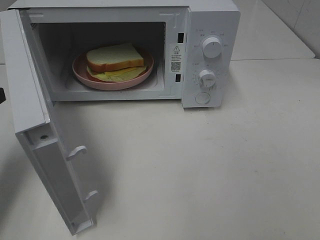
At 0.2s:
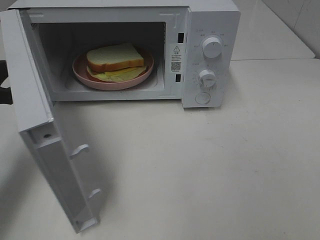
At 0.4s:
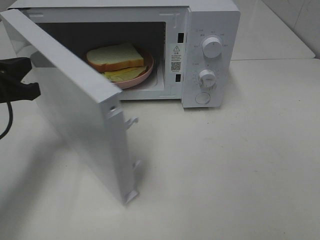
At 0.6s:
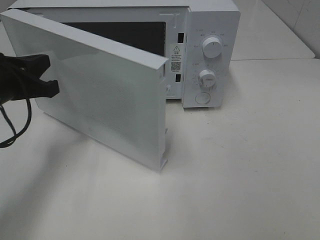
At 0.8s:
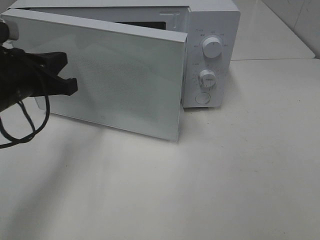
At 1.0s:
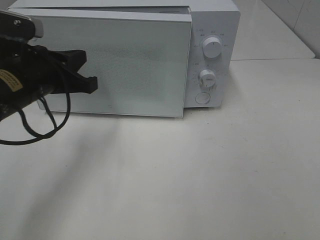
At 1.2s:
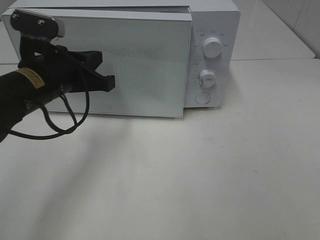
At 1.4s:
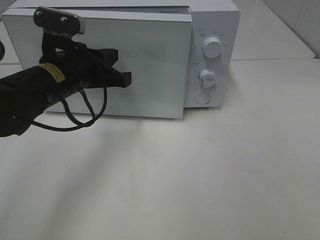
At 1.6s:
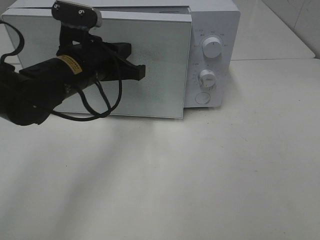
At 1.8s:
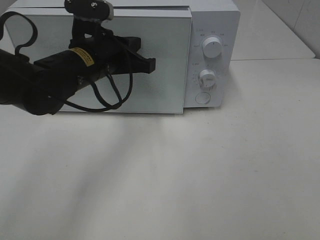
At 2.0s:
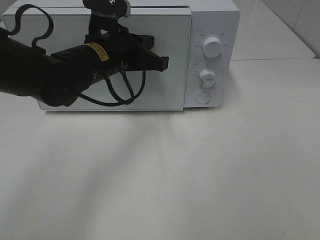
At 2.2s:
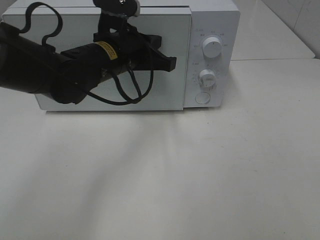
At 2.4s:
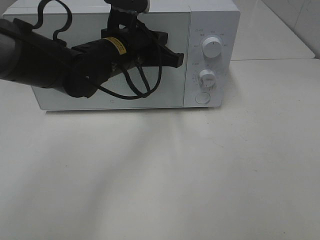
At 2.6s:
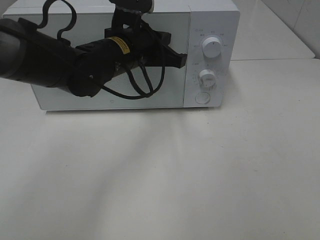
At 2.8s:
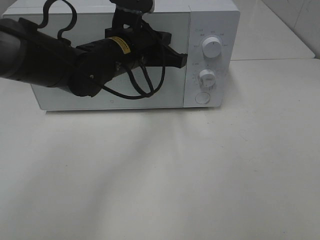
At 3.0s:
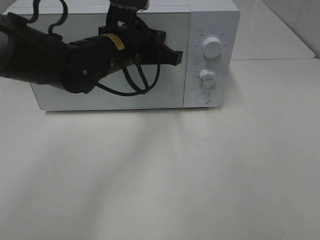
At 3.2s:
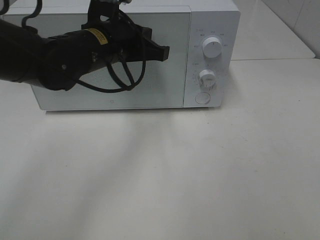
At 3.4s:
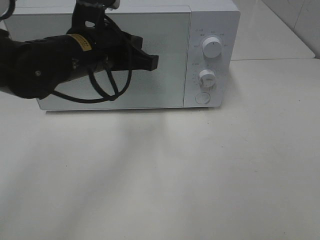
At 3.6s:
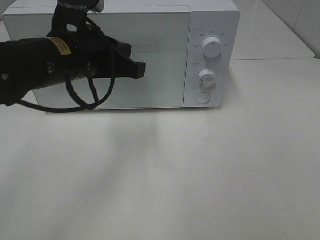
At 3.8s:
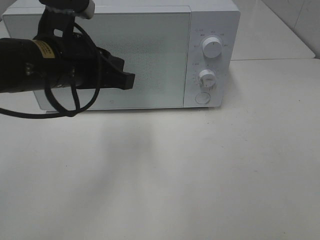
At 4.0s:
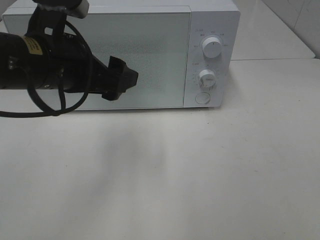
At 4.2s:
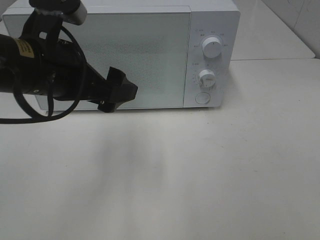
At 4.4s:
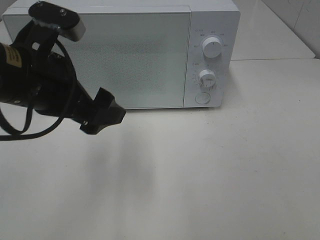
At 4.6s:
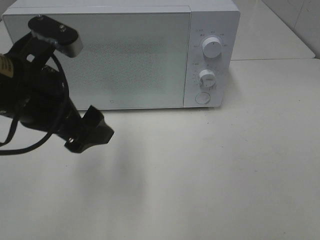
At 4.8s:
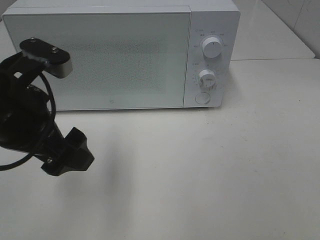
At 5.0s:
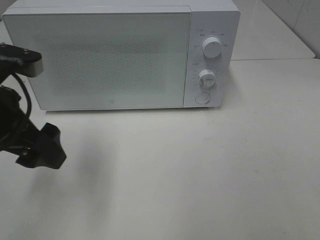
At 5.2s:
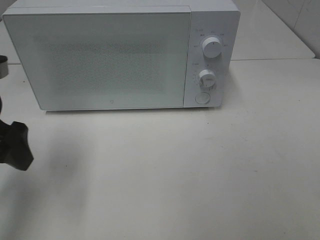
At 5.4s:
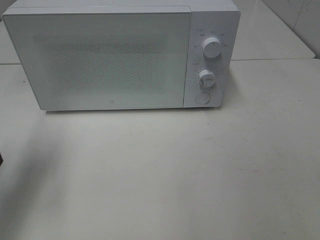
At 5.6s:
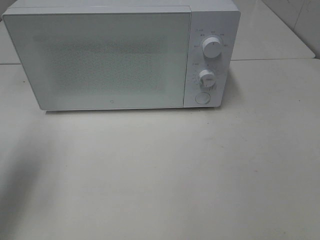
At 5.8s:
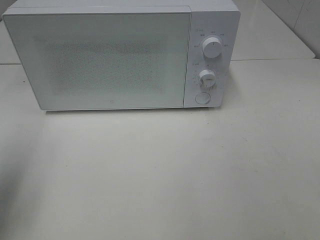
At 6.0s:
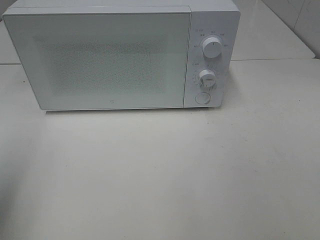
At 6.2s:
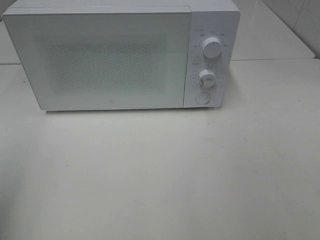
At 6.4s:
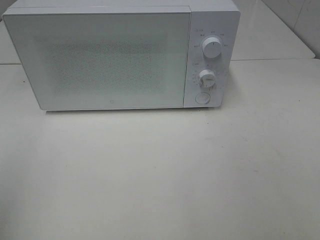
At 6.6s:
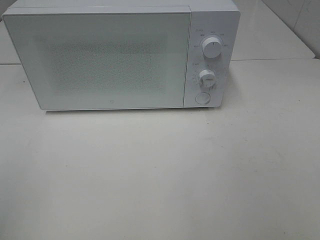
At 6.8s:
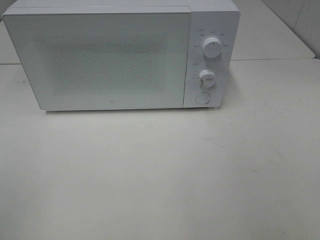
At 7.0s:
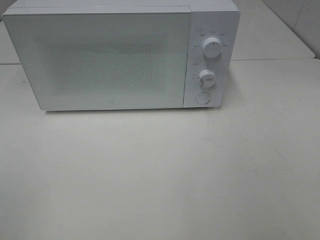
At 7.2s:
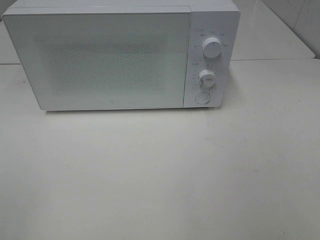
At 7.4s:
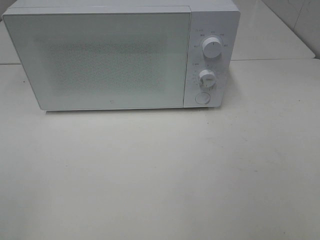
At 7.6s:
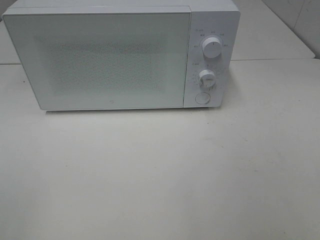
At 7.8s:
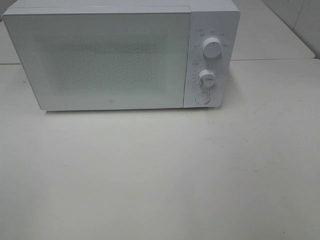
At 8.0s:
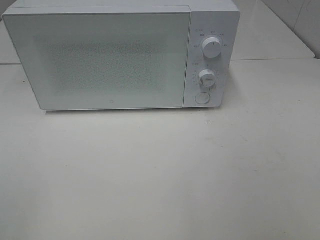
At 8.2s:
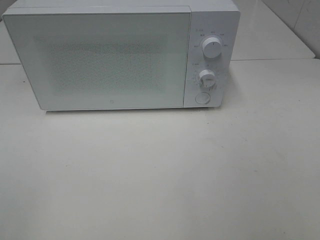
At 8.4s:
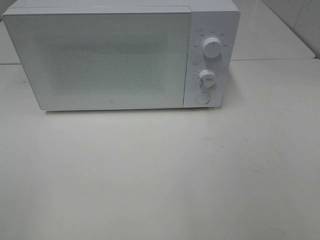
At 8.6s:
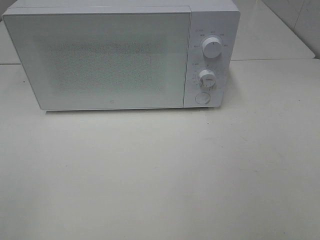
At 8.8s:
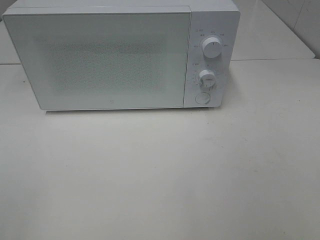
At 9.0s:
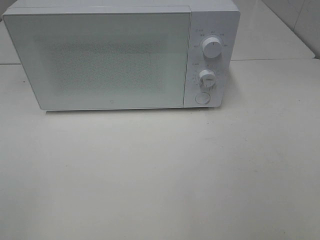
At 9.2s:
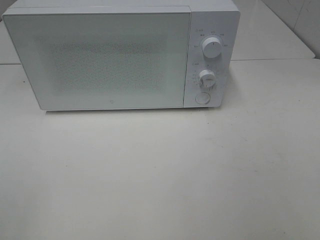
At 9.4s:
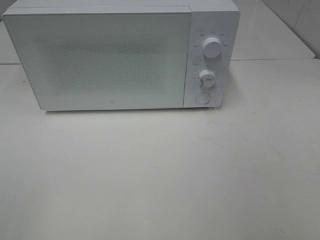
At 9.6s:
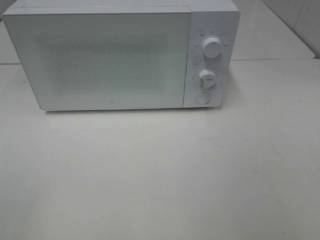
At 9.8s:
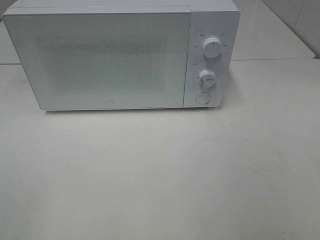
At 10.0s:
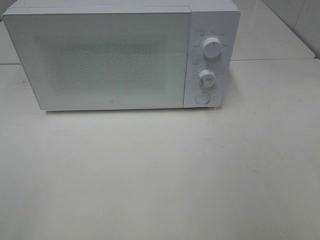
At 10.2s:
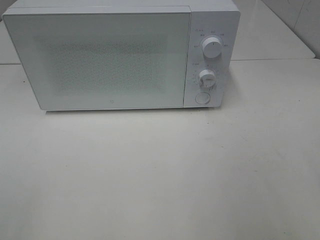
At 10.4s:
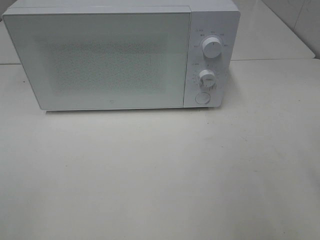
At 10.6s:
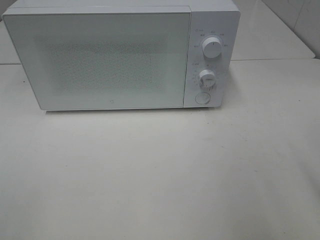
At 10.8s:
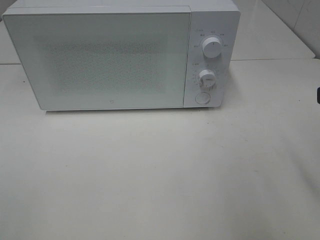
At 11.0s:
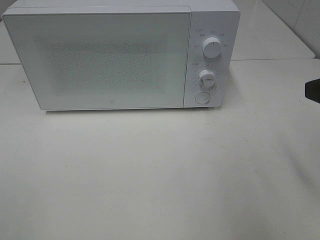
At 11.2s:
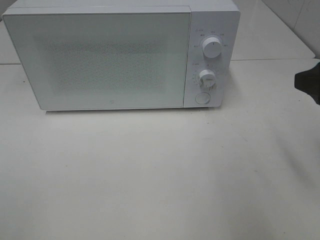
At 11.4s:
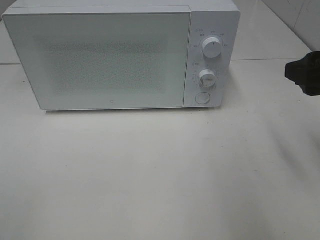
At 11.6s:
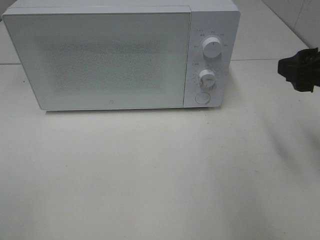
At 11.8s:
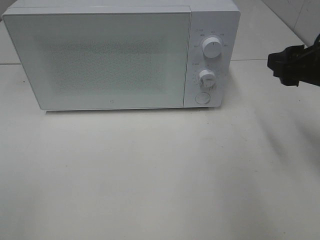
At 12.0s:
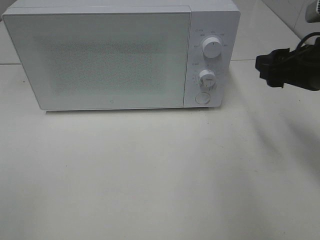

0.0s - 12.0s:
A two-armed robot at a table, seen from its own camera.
Task of the whole recording: Heat Sandwich.
Step, 0.0s - 3.8s: Left hand: close the microwave door.
0.0s - 1.6s: The left gripper shifts some 20 cm to the right.
1.6s - 3.0s: The left gripper heads to the right, covering some 5 cm.
3.0s - 4.4s: The left gripper travels backward and to the left by approximately 15 cm, and opens up.
4.4s - 6.0s: The left gripper shifts some 20 cm to the left and backward.
6.0s - 7.6s: The left gripper goes roughly 15 cm backward.
7.6s - 9.0s: Both grippers stay about where they are.
10.4s - 12.0s: The right gripper travels forward and downward by roughly 15 cm.

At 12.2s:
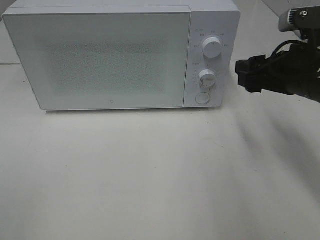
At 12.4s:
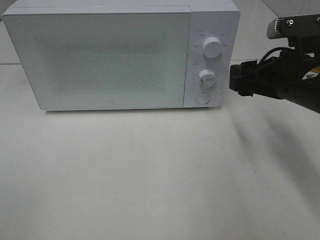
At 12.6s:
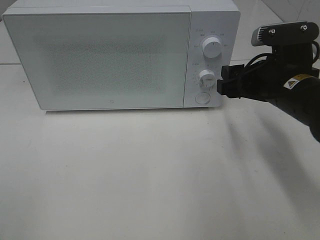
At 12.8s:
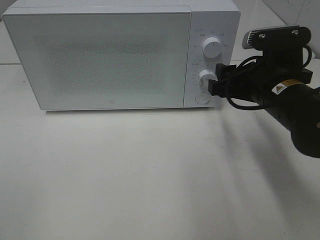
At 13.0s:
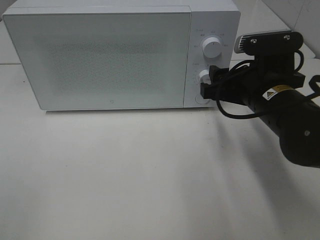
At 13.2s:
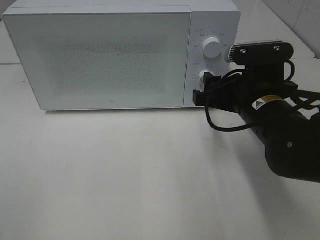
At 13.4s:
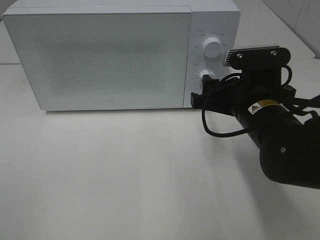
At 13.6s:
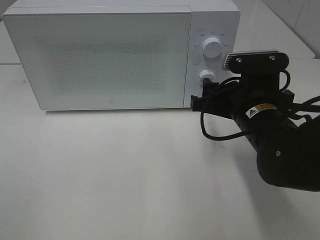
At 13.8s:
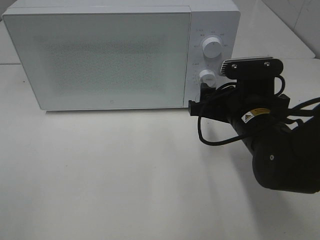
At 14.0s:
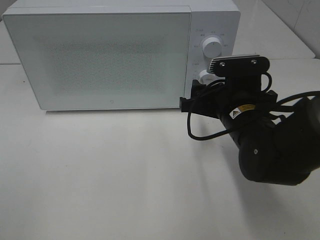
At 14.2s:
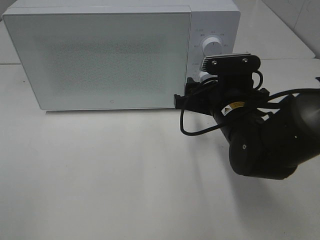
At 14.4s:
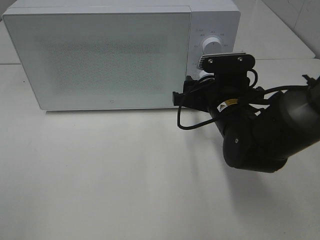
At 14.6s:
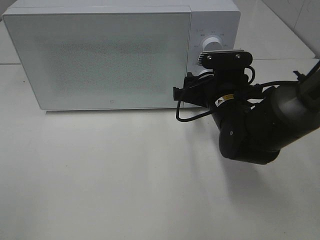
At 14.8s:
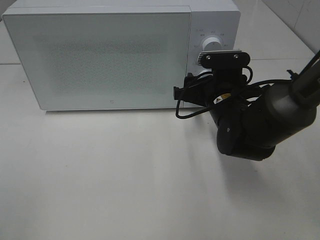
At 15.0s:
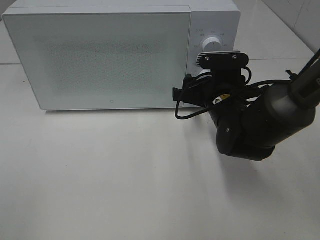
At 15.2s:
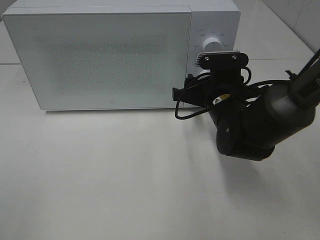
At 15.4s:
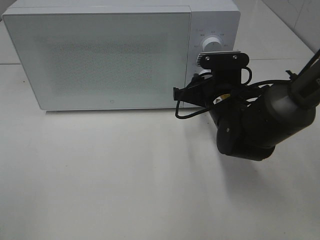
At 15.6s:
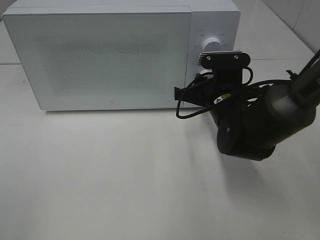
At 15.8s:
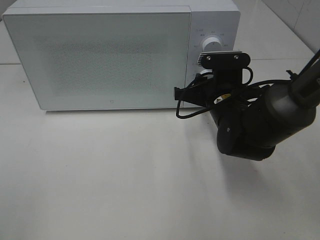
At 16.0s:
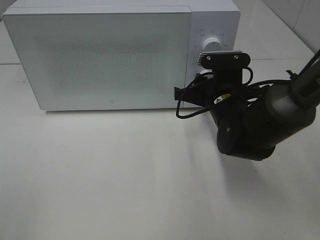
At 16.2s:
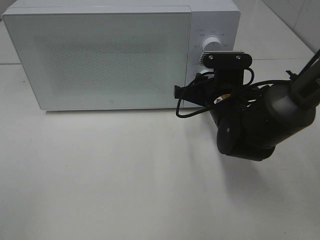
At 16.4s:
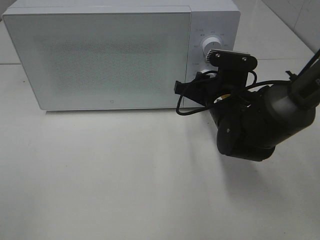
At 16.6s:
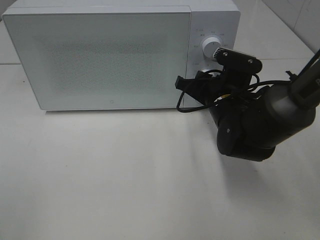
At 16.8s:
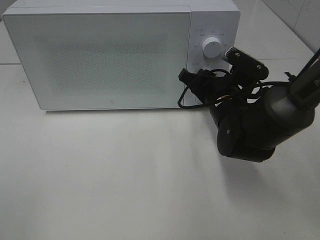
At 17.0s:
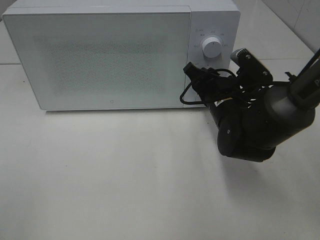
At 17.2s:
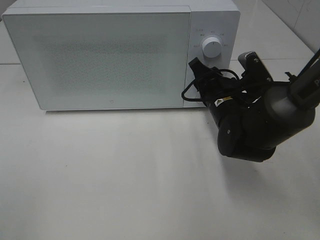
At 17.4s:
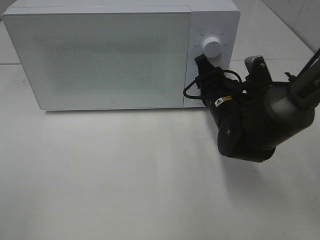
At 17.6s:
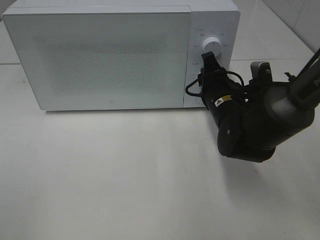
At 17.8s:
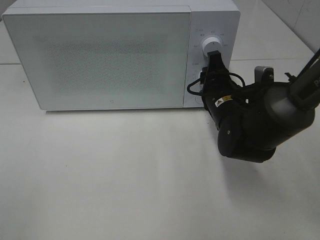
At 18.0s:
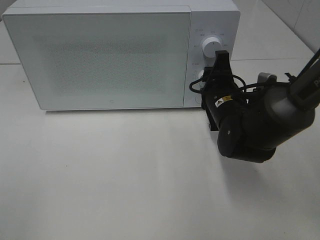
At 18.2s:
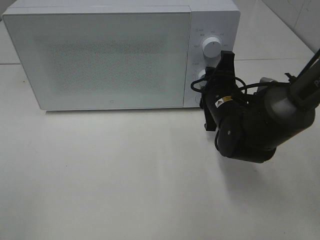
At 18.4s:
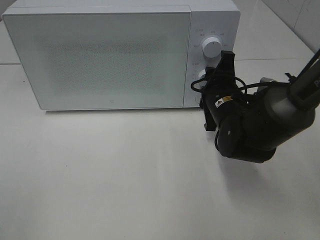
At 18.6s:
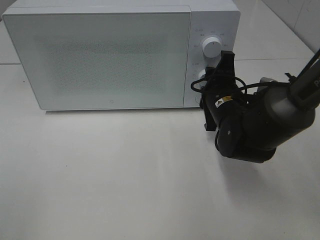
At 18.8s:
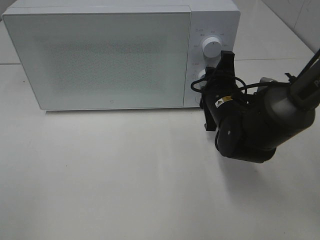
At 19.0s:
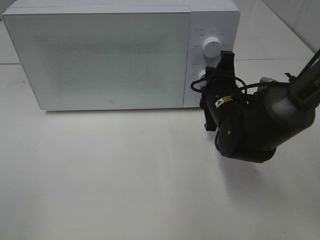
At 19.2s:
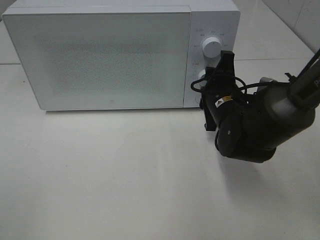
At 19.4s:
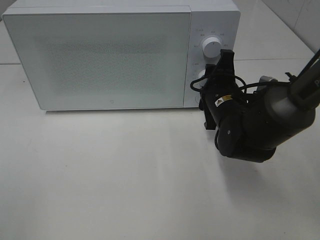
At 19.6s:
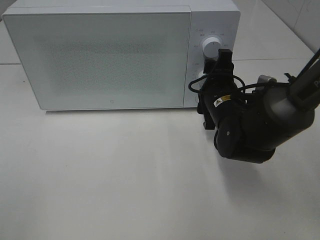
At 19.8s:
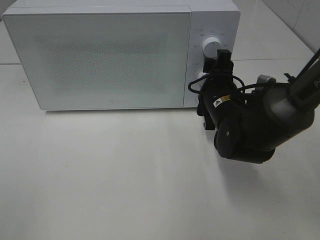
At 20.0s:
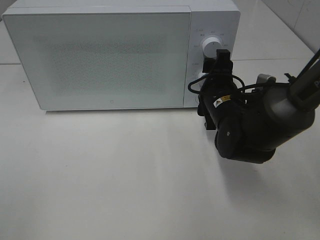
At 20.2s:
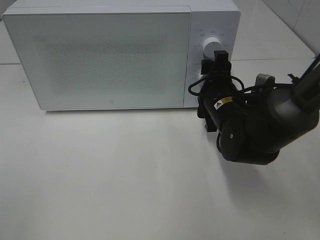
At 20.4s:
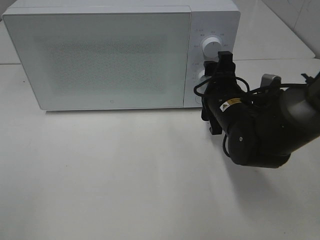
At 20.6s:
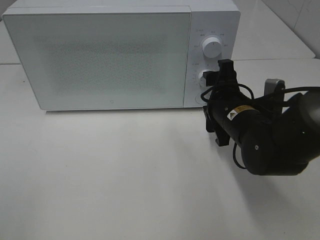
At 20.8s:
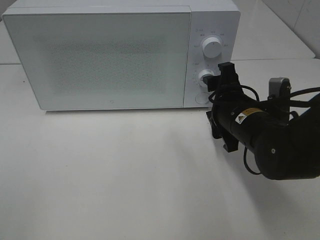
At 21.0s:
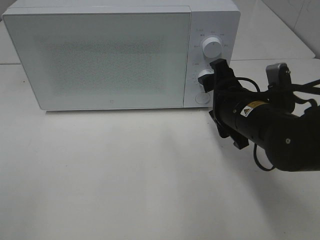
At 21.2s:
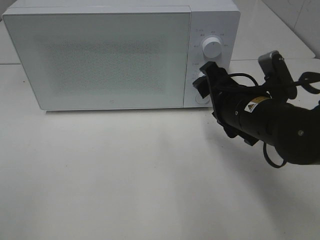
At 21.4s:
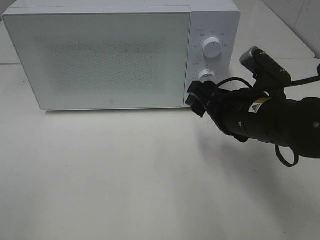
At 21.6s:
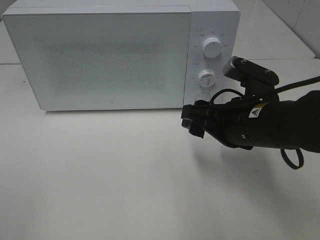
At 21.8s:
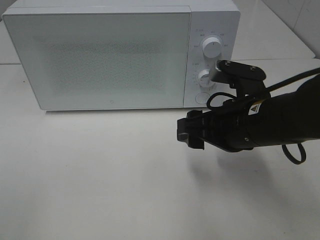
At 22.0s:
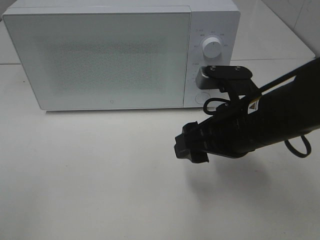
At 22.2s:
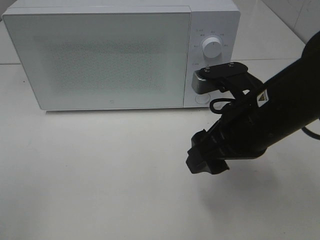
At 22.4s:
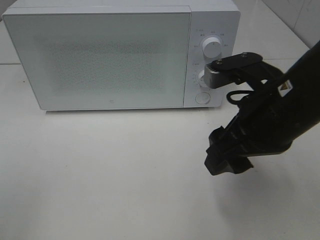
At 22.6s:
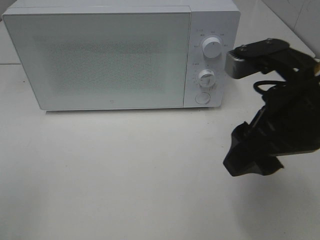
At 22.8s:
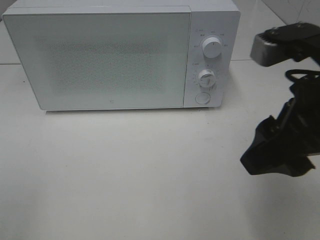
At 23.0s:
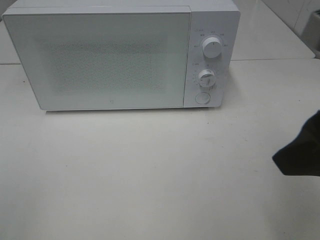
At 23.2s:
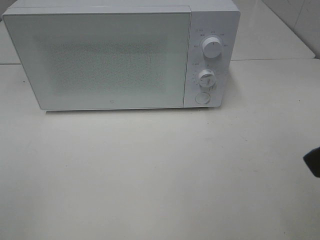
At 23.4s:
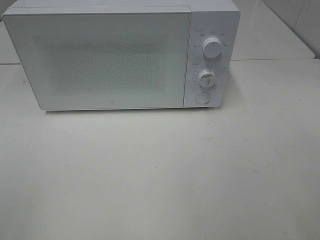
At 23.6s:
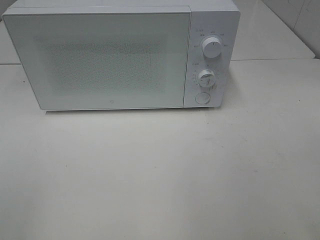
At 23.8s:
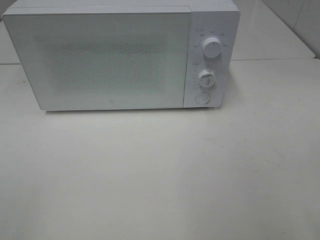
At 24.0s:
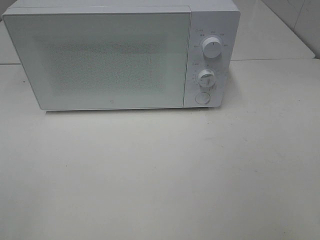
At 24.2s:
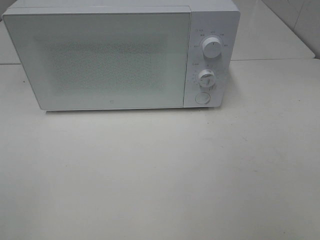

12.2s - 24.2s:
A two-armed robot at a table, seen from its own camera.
Task of the whole recording: Heat Sandwich.
Step, 12.2s - 20.4s: Right hand: twist timer button.
12.2s - 13.8s: The right gripper shifts approximately 10 cm to the left and downward.
13.8s - 15.2s: The right gripper heads forward, covering some 5 cm.
15.2s - 16.6s: The grippers stay close to where they were, moving slightly.
18.2s - 19.8s: The right gripper opens.
19.8s - 21.2s: The right gripper shifts approximately 5 cm backward.
21.2s - 22.6s: The right gripper shifts roughly 15 cm upward and backward.
22.6s - 24.2s: The right gripper is displaced backward and to the right by approximately 20 cm.
